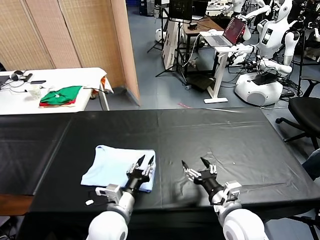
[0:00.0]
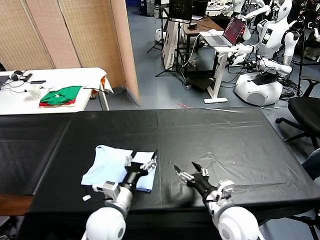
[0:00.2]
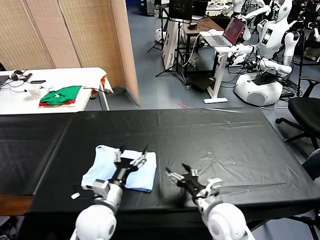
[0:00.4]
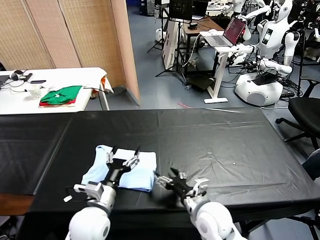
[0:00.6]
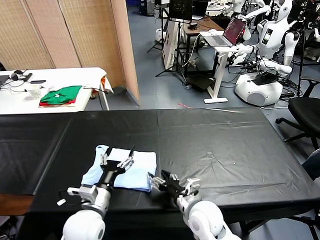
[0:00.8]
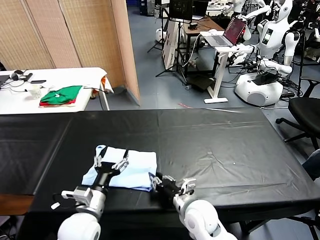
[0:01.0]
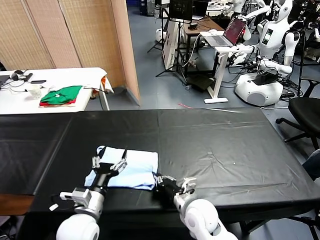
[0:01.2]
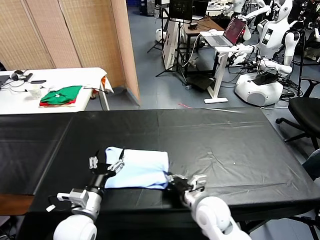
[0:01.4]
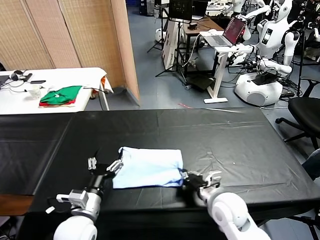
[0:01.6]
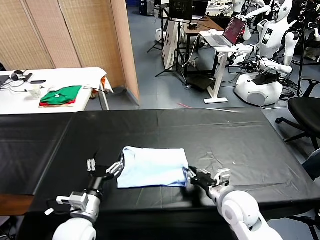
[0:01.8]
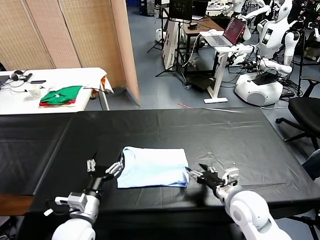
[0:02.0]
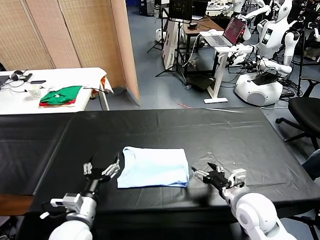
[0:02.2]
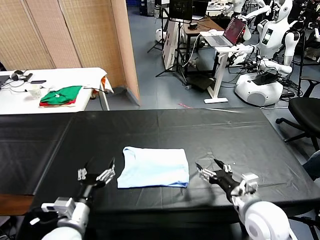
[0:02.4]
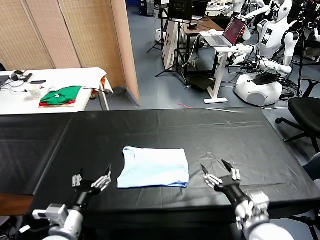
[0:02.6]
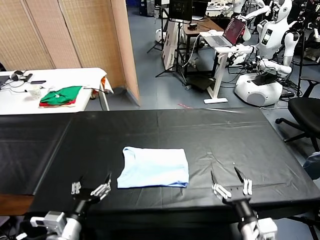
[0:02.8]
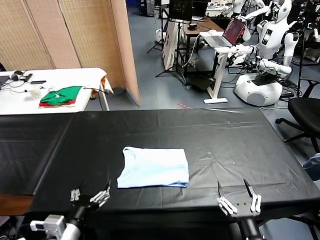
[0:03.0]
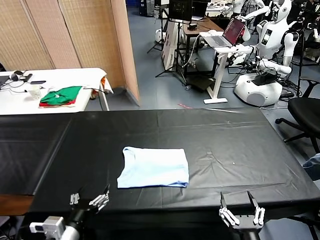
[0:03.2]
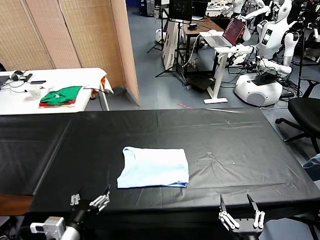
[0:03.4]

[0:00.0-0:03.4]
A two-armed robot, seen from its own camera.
Task of the whole recording: fold and organize the clothes.
Step, 0:00.2 to 0:01.8: Drag the clothes to the center of the table.
0:00.0 to 0:01.6: The right gripper heads forward, covering roughly 5 cm, travels to the left and back again, some 10 cm each way, and closes up. Meanwhile the left gripper travels to the left by about 10 cm, and opens.
0:01.6 to 0:03.4: The left gripper heads backward, covering approximately 10 cm; the right gripper heads backward, covering some 25 cm, and opens up.

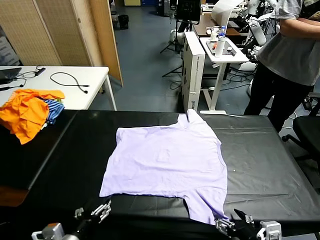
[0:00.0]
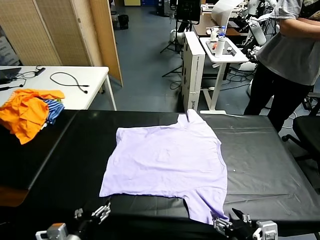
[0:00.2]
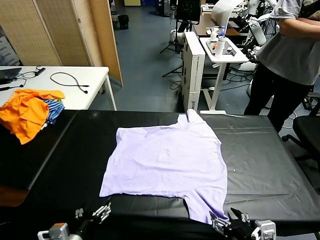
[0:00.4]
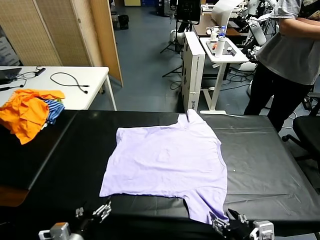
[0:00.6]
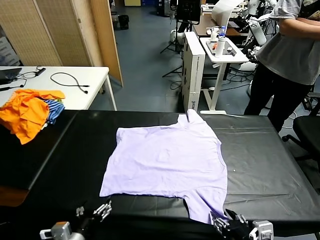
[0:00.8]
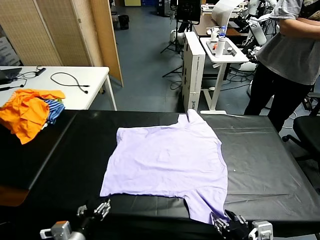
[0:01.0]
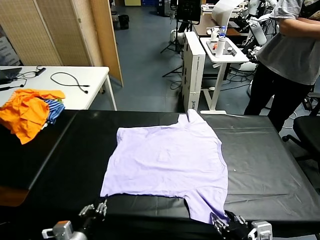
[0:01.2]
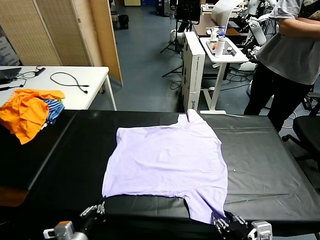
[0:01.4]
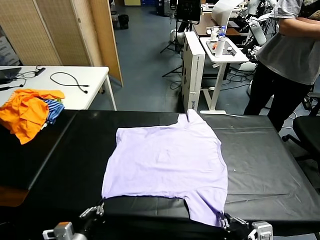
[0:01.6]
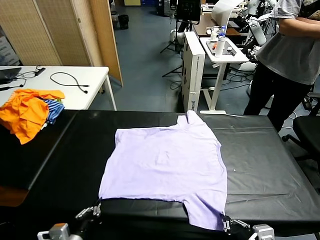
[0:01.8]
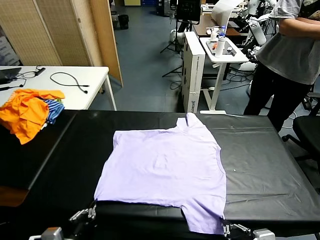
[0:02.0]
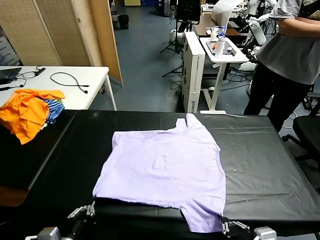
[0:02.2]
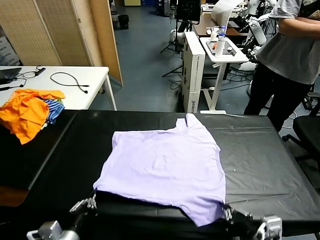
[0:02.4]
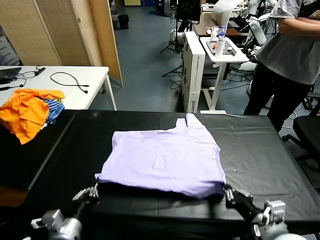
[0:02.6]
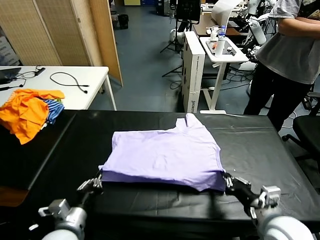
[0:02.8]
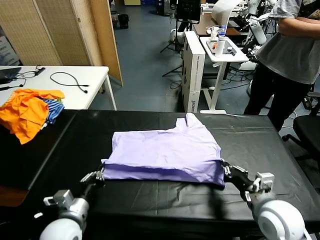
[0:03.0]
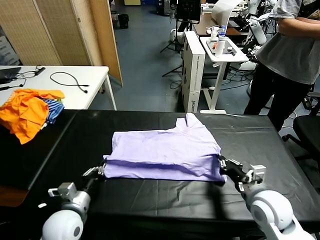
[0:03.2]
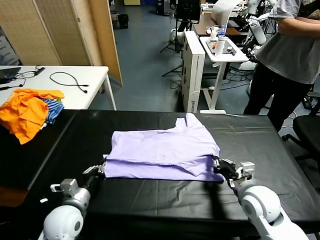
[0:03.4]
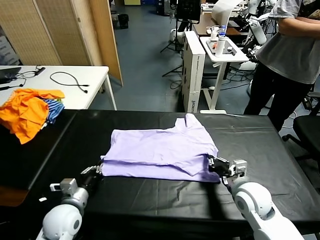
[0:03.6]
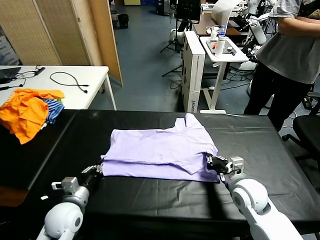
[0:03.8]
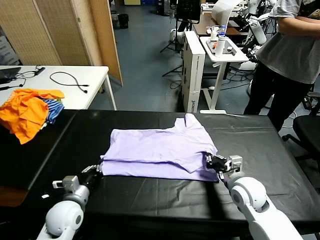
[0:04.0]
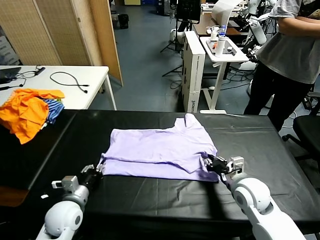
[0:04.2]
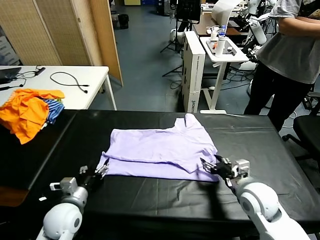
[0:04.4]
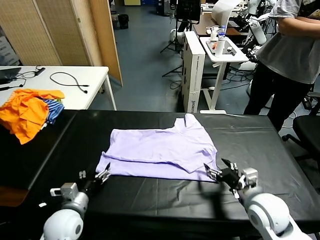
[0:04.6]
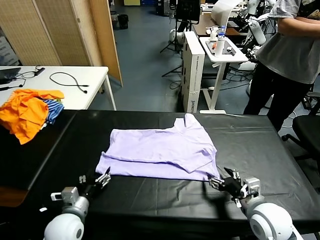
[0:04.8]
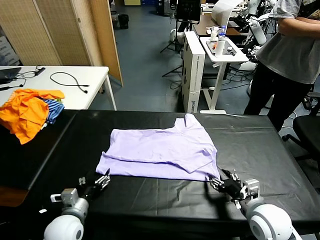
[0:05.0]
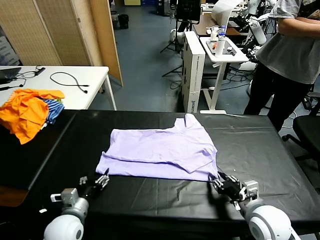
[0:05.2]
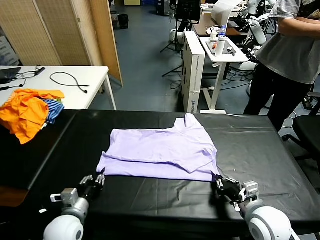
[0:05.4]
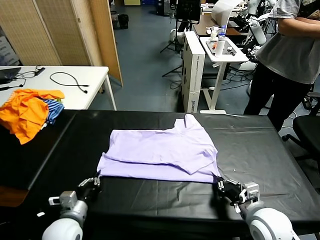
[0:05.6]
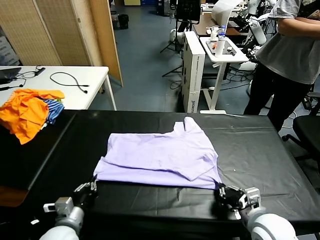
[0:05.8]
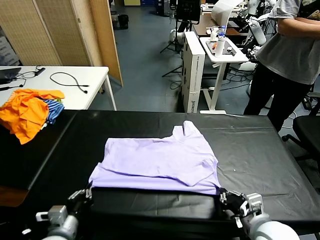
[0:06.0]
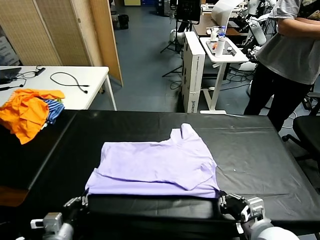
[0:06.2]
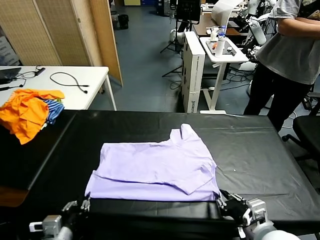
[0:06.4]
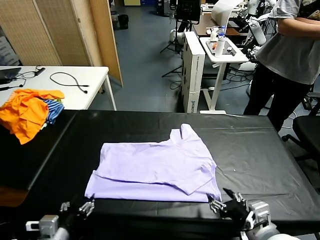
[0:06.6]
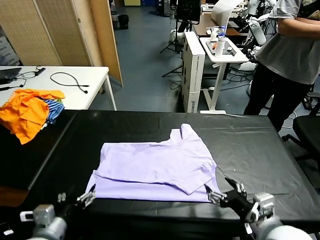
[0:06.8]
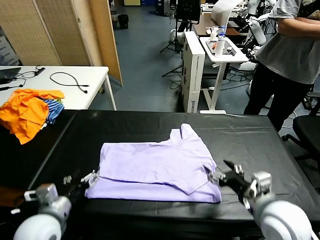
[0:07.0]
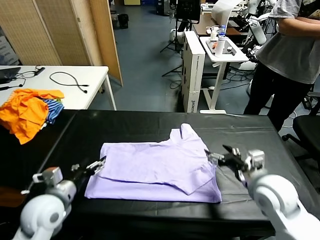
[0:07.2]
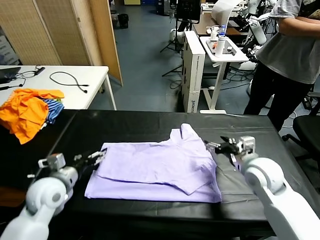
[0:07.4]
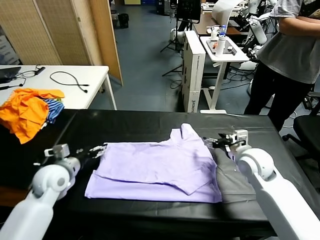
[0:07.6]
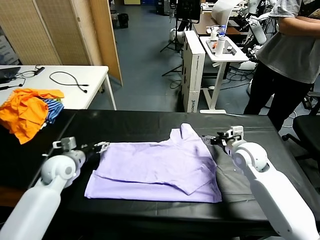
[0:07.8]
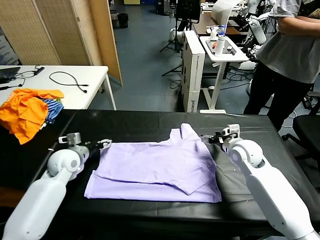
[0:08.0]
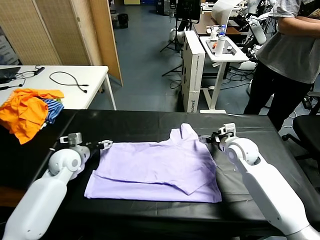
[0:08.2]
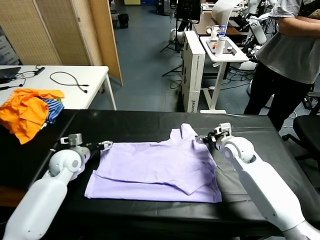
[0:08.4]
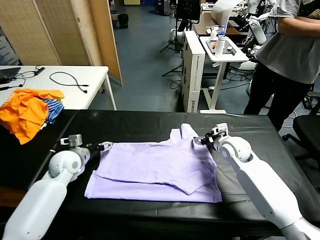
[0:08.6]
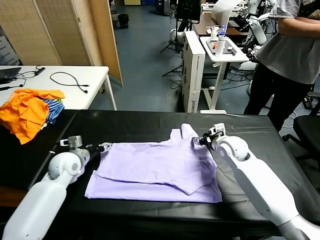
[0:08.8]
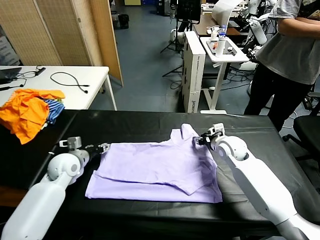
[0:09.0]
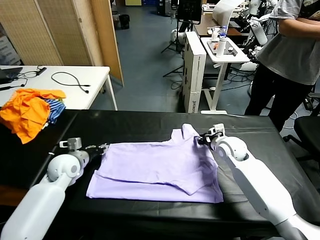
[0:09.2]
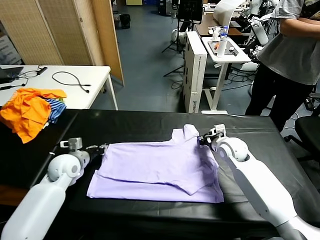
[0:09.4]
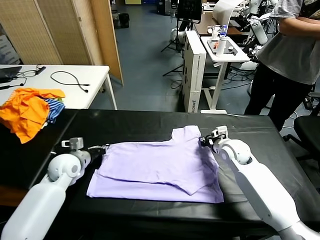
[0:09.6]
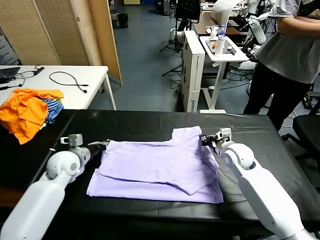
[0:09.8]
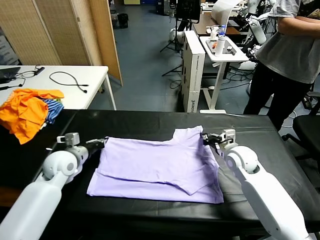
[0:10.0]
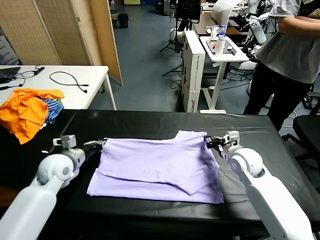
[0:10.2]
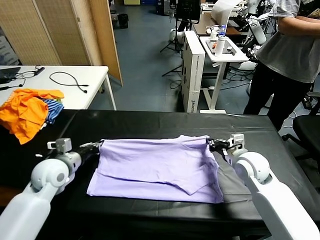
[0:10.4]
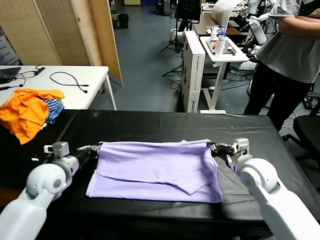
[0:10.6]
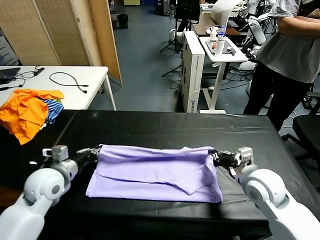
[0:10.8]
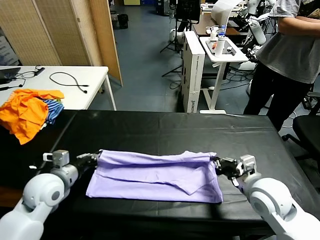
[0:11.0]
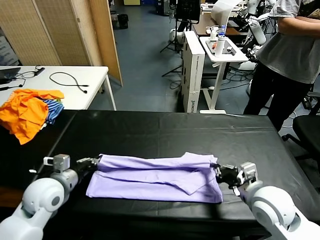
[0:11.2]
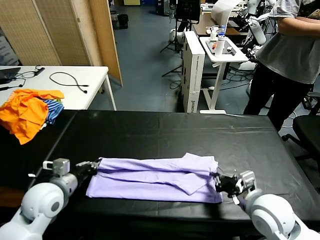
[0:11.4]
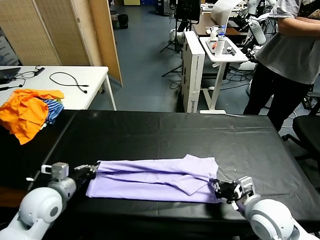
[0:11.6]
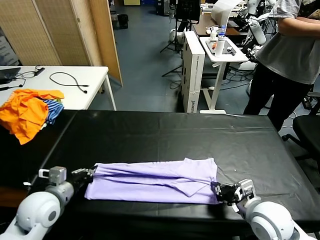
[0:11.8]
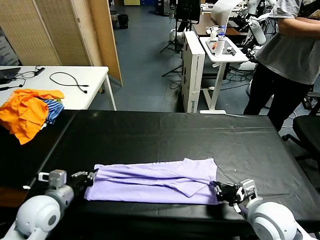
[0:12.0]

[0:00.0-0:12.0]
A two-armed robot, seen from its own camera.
Task of the whole recording: fold and organize the clothes.
Step, 0:00.0 to 0:01.6: use both grippers simultaneously to clamp the lower edge of the clothing fabric.
Step, 0:01.8 to 0:04.2: use both grippers to drag the lower edge of the fabric forward and fold it over the upper edge.
Step, 0:04.6 to 0:06.6: Drag the clothes downward with both gripper.
Step, 0:06.8 to 0:09.6: use both grippers simultaneously to clamp the upper edge of the clothing fabric.
0:01.6 to 0:03.0: The left gripper heads forward, covering approximately 10 cm, while the right gripper is displaced forward by approximately 20 cm.
0:03.0 to 0:04.4: The left gripper opens up. The right gripper opens.
0:04.4 to 0:06.0: Both grippers travel together backward, some 10 cm. The left gripper closes. Meanwhile the right gripper closes up.
0:06.0 to 0:07.6: Both grippers move forward, about 25 cm. The left gripper opens up. Meanwhile the right gripper opens its fingers.
0:07.6 to 0:09.0: The right gripper ends up some 5 cm from where it was, and closes up; the left gripper closes up.
0:09.0 to 0:10.4: The right gripper shifts roughly 15 cm backward, while the left gripper is displaced backward and upward by approximately 10 cm, and closes.
0:10.4 to 0:12.0: Both grippers move backward, approximately 10 cm. The left gripper opens. The right gripper opens its fingers.

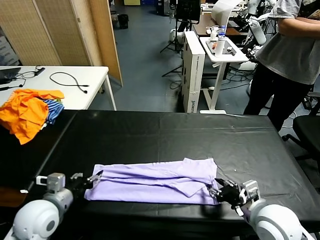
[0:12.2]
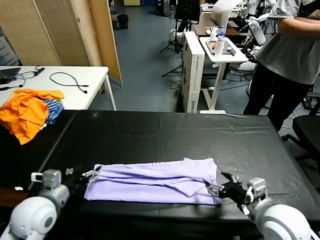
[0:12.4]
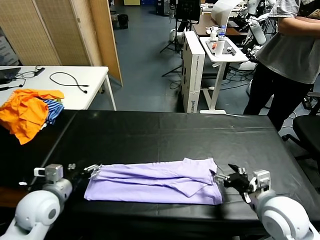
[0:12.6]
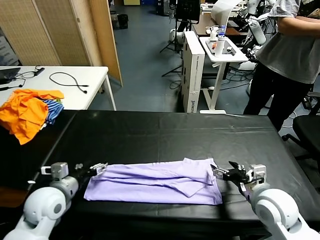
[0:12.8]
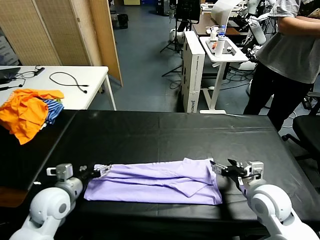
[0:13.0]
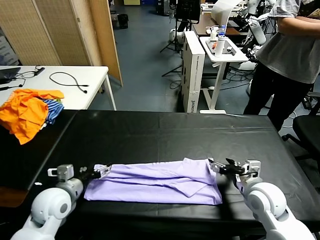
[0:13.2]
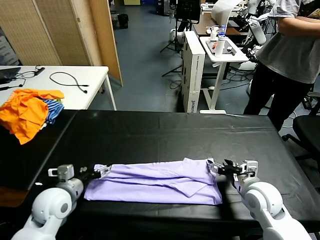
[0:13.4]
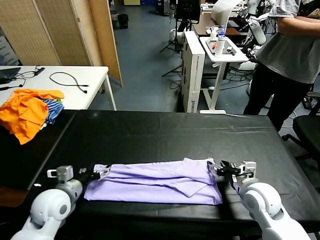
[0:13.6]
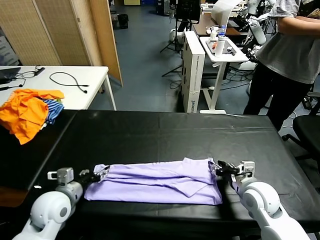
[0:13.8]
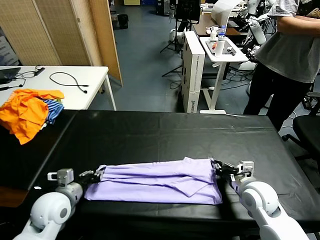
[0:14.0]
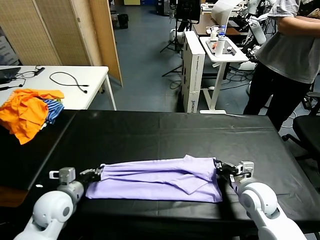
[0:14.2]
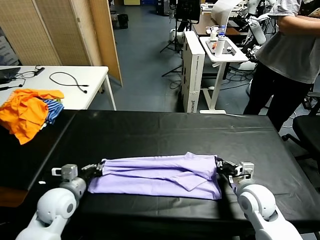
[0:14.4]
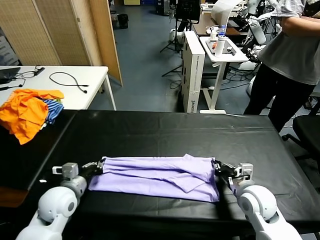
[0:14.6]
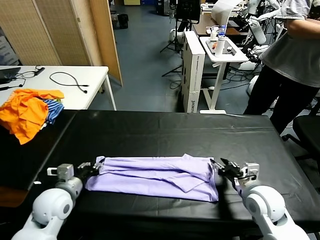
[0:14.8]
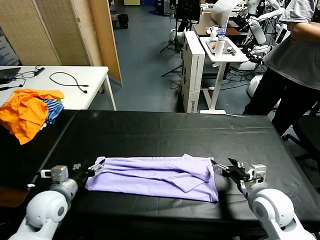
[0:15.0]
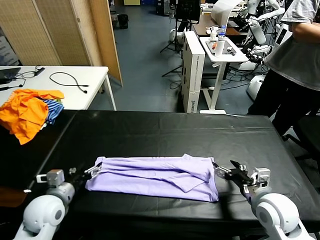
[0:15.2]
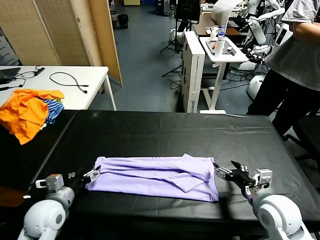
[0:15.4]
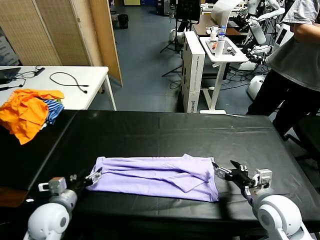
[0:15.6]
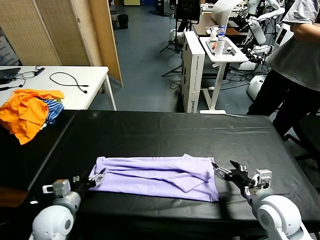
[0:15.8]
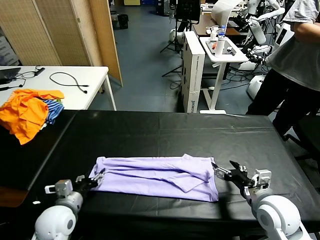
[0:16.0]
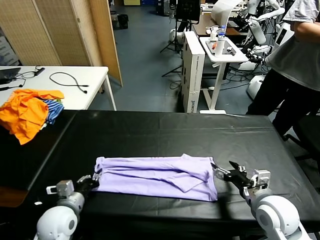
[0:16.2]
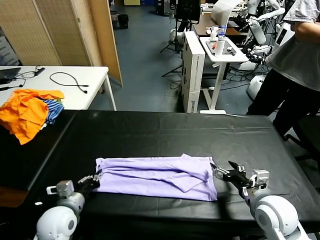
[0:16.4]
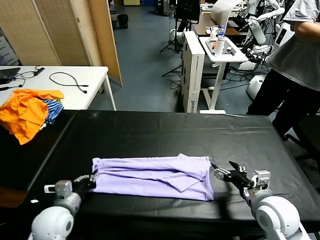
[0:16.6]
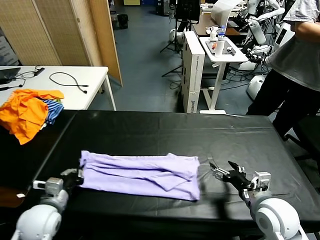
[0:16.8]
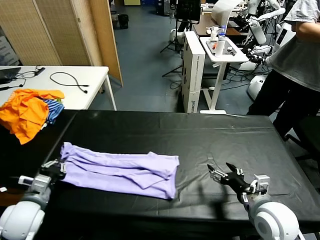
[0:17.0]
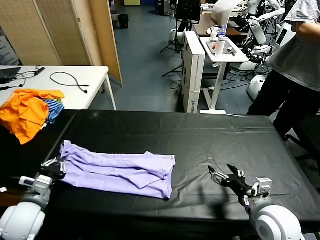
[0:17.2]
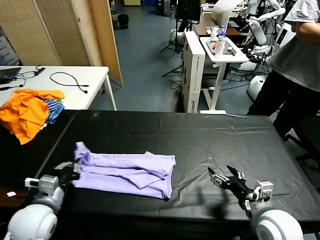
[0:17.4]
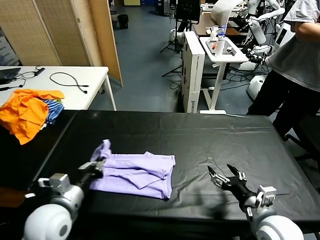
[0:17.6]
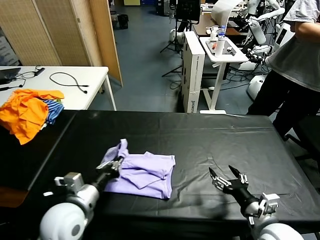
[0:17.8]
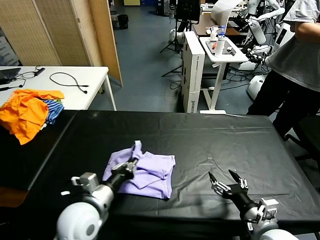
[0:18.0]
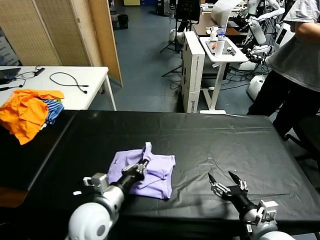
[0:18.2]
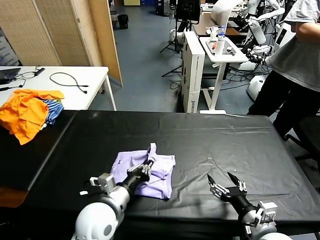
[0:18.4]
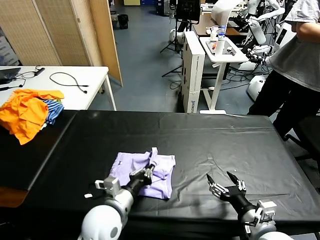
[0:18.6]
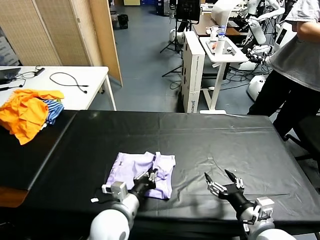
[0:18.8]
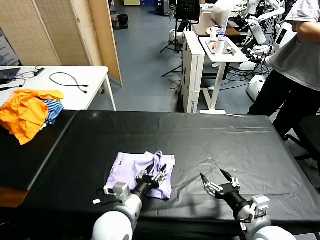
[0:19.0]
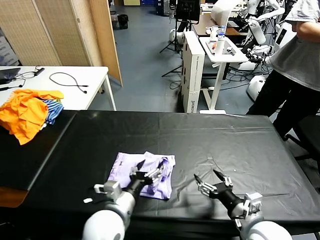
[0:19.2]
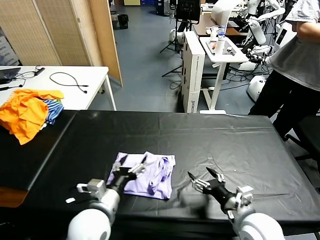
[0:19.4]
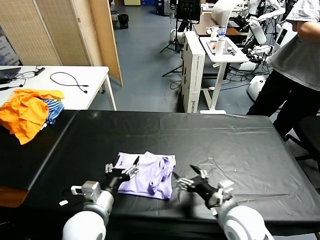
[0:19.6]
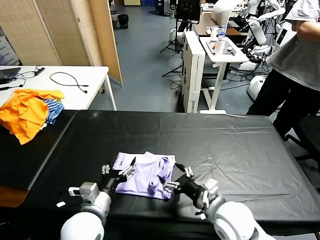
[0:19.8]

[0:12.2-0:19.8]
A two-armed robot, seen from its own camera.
Task of the whole recording: fold and organize the clothes.
Step, 0:12.2 to 0:15.0: use both grippers to drag the upper edge of the fabric backward and fold it over the lower edge.
Step, 0:15.2 to 0:16.2: use the left gripper to clamp the left edge of the fabric.
0:12.2 to 0:13.8: The left gripper shifts by some 5 cm, and closes its fingers; the right gripper shifts some 15 cm forward and downward, and closes up.
0:13.8 to 0:15.2: The right gripper goes about 5 cm backward, and opens up. The left gripper opens.
0:15.2 to 0:16.8: The left gripper closes.
0:16.8 to 0:18.2: The right gripper goes some 5 cm backward; the left gripper travels to the right by approximately 15 cm.
0:18.2 to 0:19.8: The left gripper opens. The right gripper shifts some 15 cm to the left and forward.
